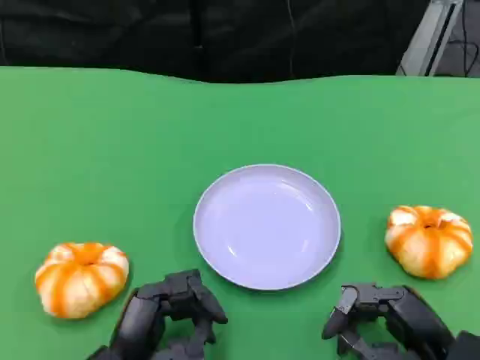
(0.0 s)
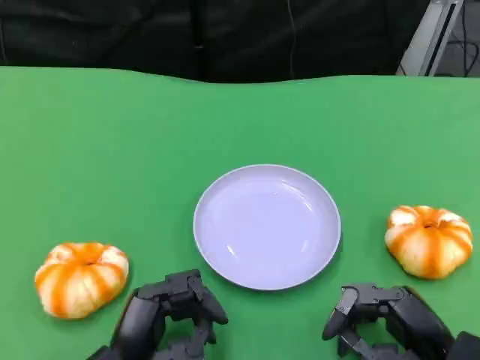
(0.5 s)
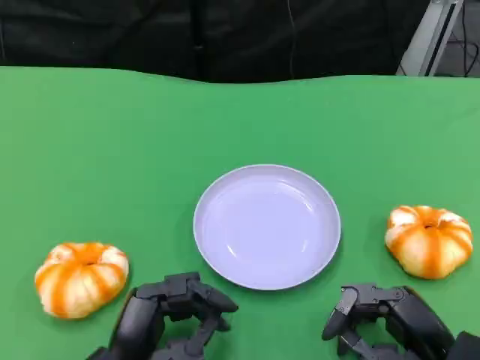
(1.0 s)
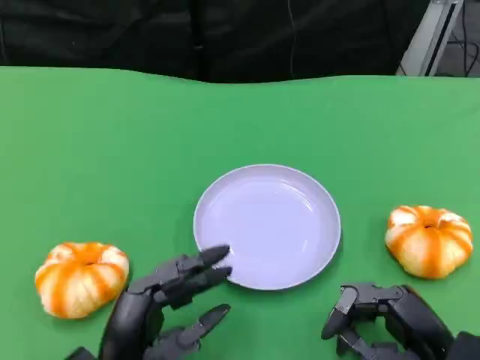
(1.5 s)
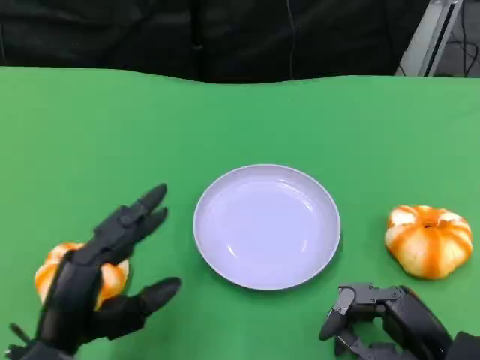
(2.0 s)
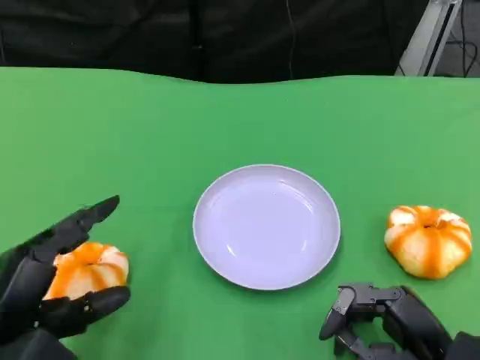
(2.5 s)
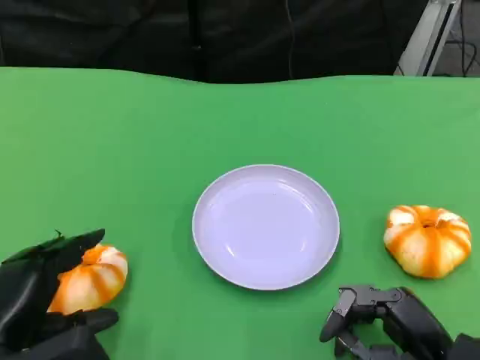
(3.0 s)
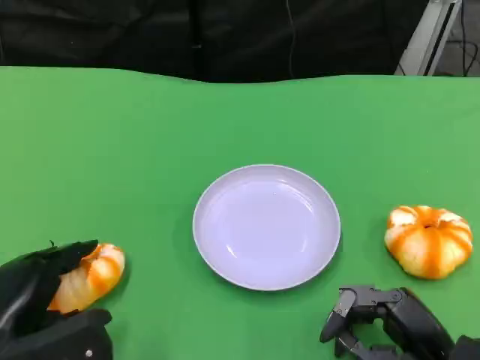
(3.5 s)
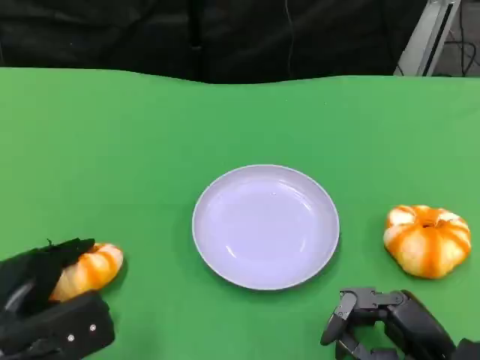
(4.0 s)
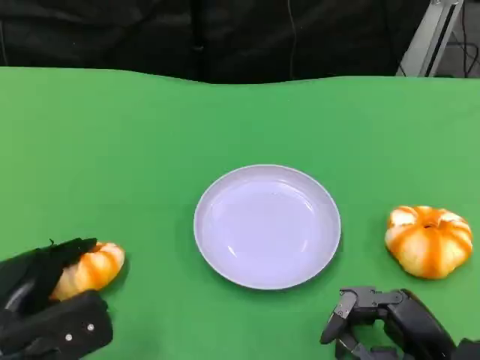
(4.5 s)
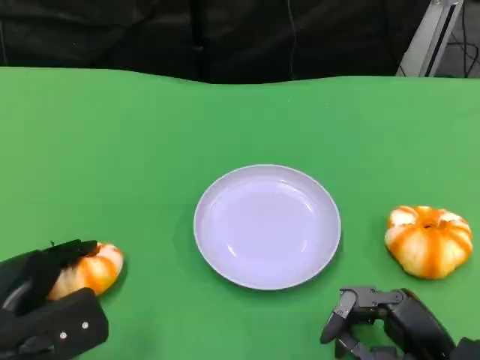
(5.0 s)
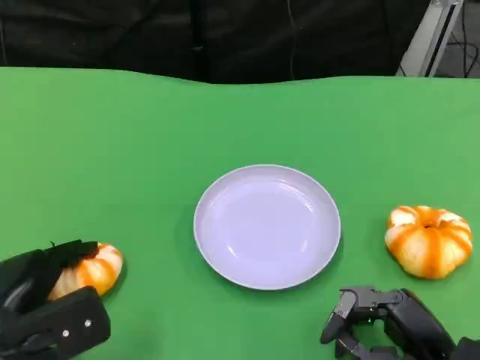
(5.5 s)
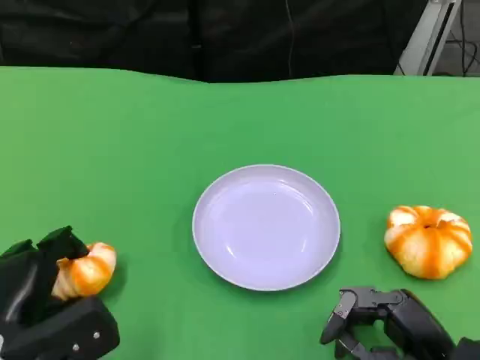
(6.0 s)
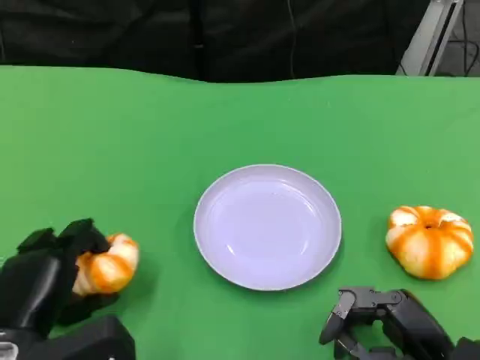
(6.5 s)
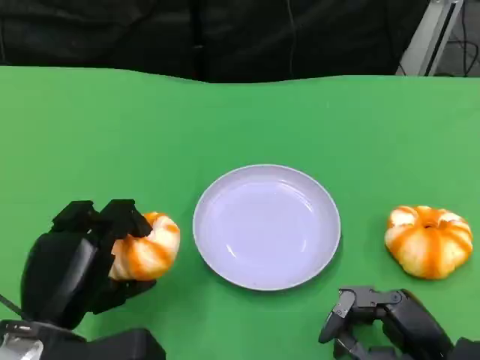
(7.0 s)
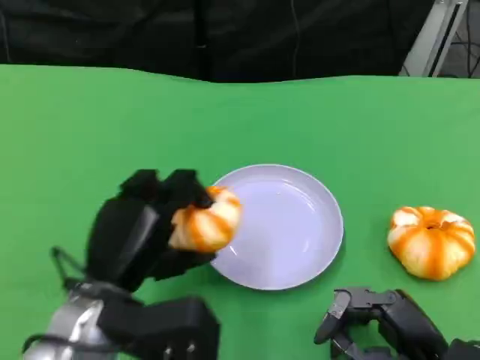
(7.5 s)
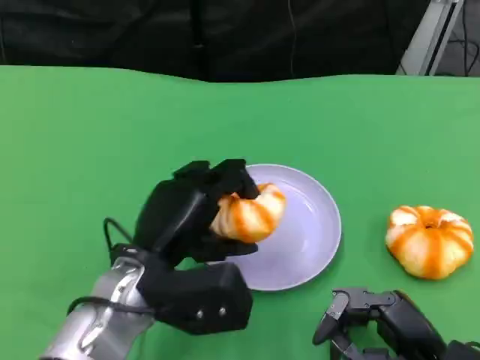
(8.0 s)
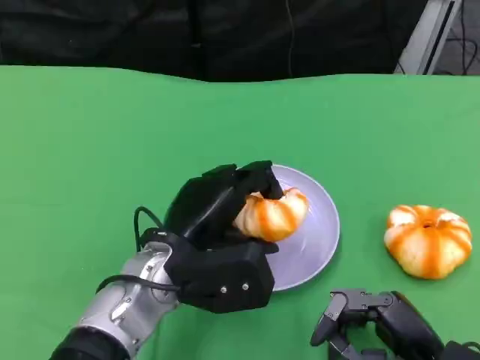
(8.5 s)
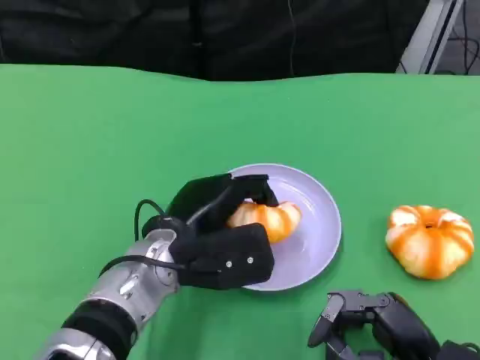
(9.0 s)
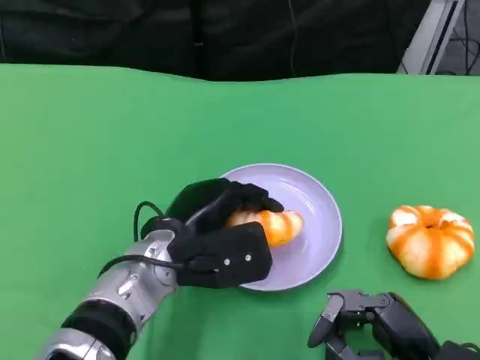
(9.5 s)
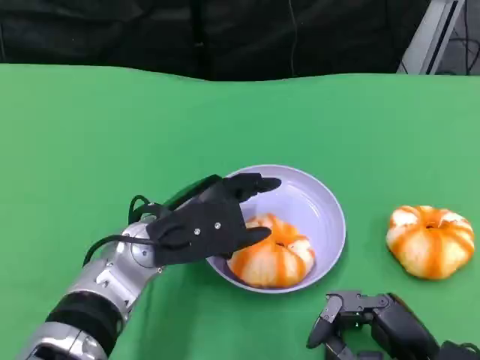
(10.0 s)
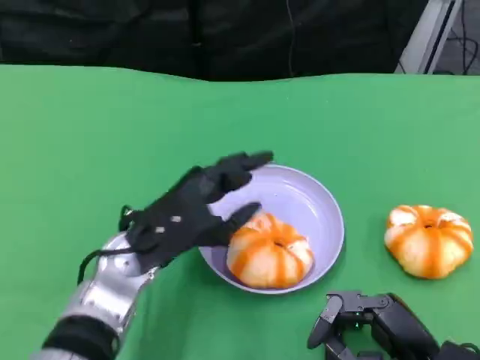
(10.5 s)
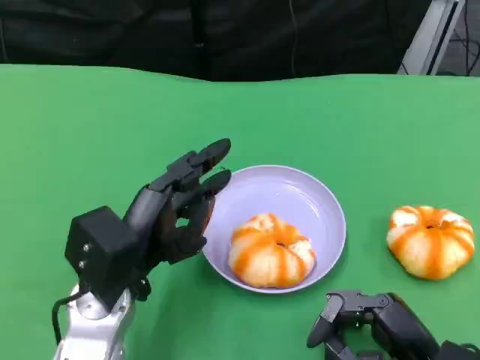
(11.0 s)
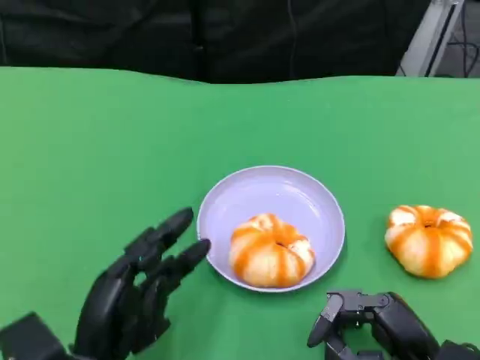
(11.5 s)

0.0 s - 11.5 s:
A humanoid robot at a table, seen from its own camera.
Task of the whole recording: Grasp the bread from the table and place it into the plate.
0.0 s - 2.0 s: The left hand shifts about 10 cm to the left and upward.
2.0 s - 4.0 s: The left hand moves to the left, some 5 cm.
4.0 s - 6.0 s: The hands make only small movements.
6.0 s - 7.5 s: The left hand travels to the right and upward by about 10 cm.
7.5 s - 9.5 s: The left hand goes approximately 10 cm forward and to the right.
9.5 s - 11.5 s: The left hand goes roughly 15 cm backward and to the left.

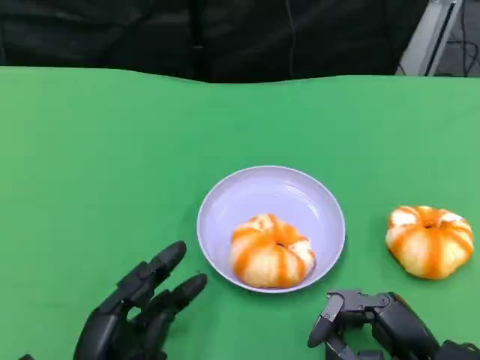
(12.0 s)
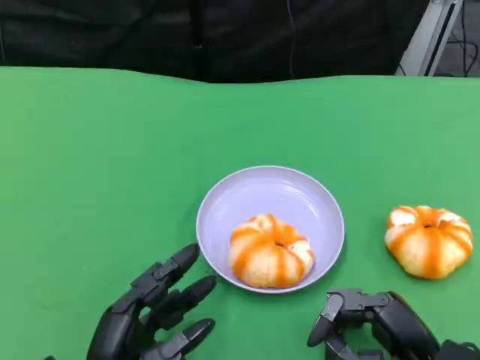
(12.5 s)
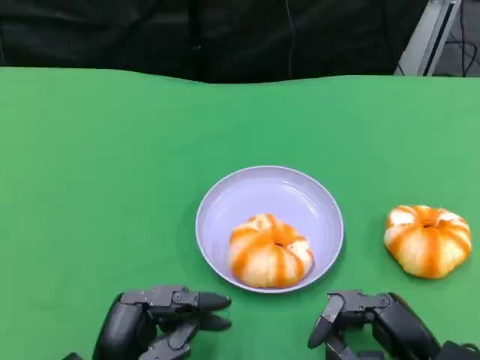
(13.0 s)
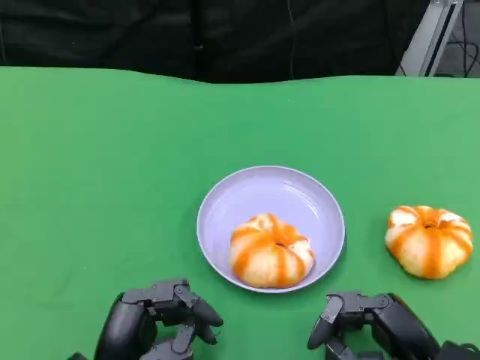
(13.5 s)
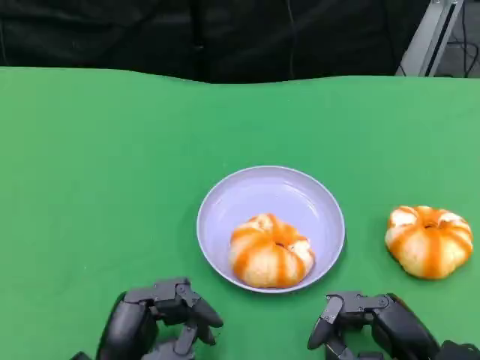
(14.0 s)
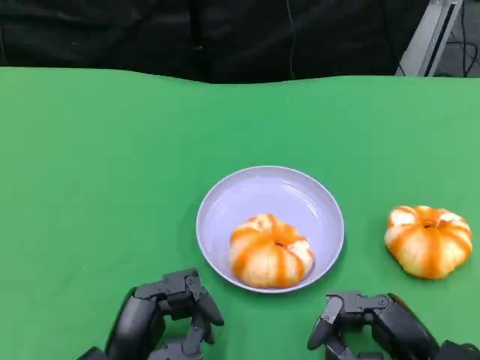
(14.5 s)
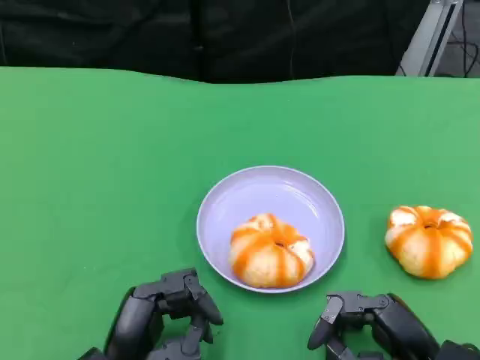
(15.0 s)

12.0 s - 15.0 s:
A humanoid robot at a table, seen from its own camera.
Task of the whole recording: Grasp the bread from the table and place it into the plate.
12.0 s - 13.5 s: There are only small adjustments of the hands.
13.5 s - 15.0 s: Both hands stay about where they are.

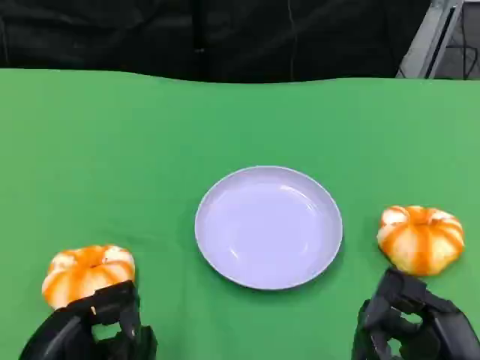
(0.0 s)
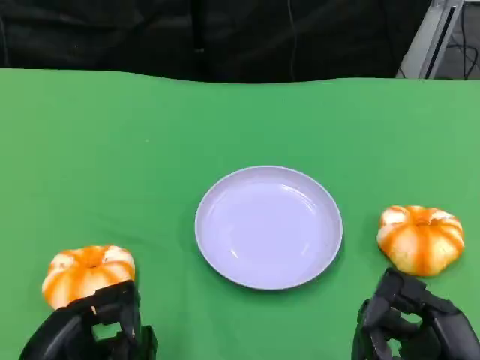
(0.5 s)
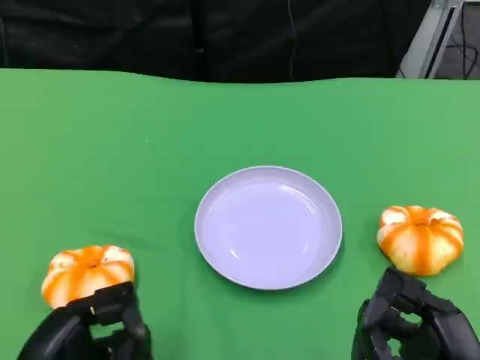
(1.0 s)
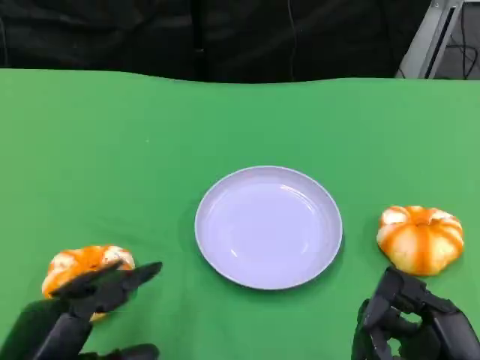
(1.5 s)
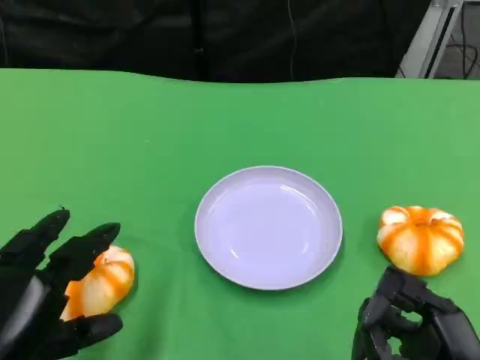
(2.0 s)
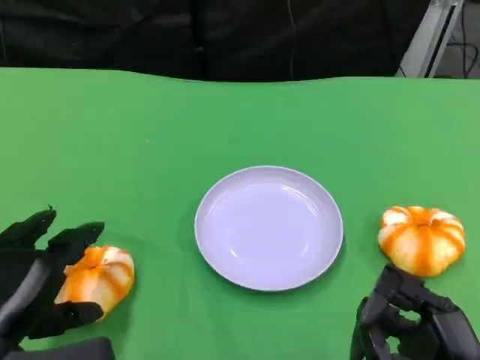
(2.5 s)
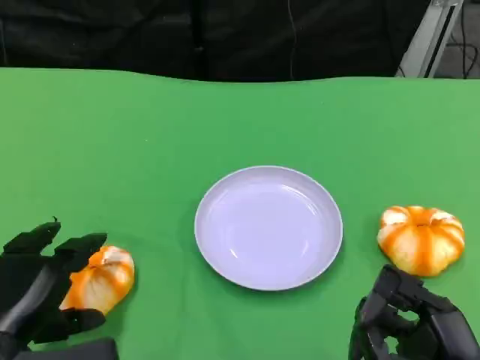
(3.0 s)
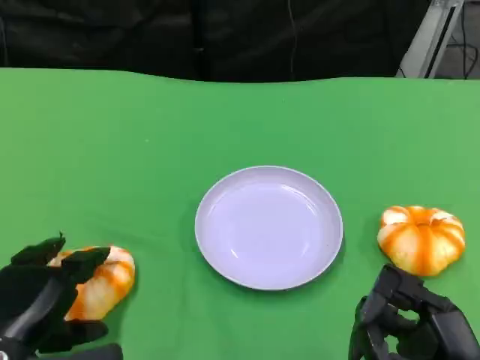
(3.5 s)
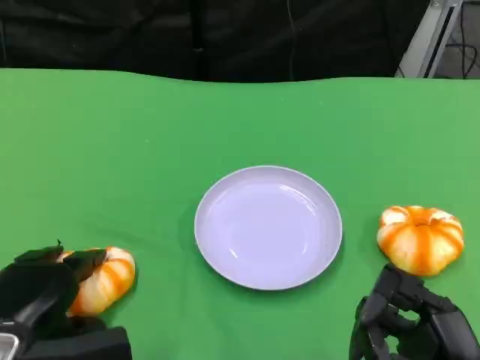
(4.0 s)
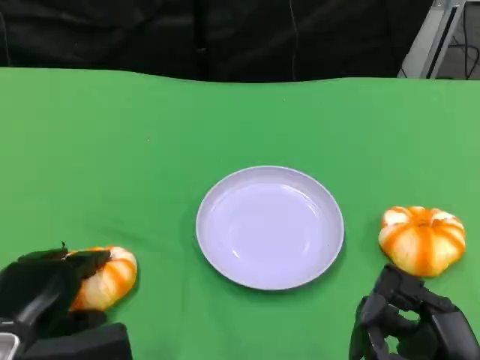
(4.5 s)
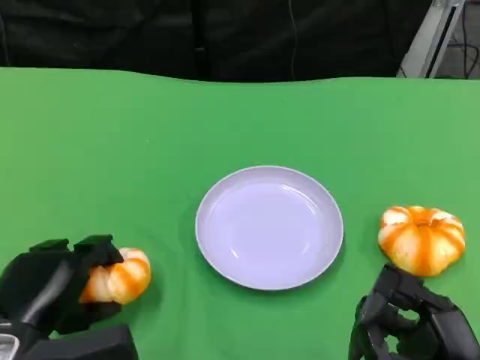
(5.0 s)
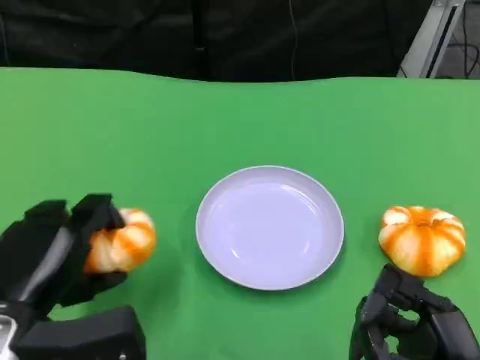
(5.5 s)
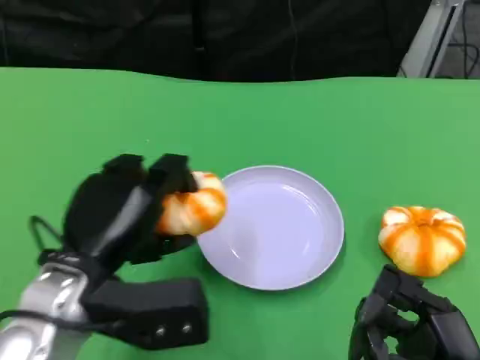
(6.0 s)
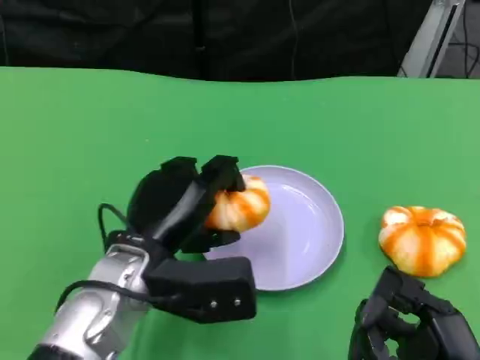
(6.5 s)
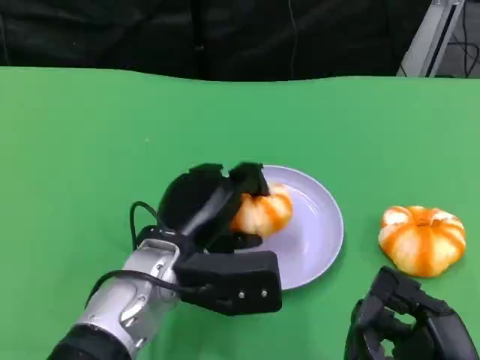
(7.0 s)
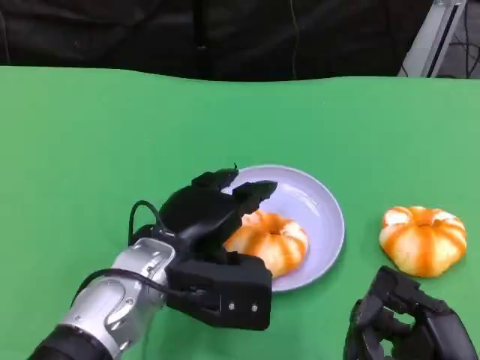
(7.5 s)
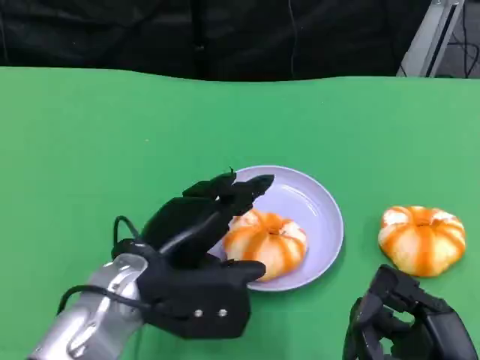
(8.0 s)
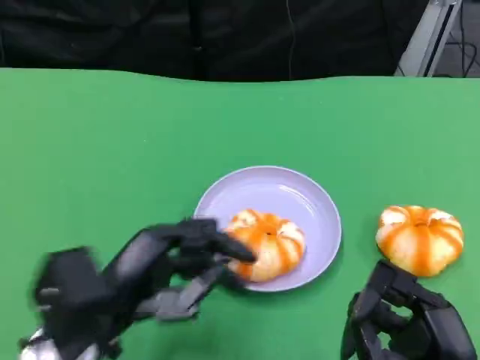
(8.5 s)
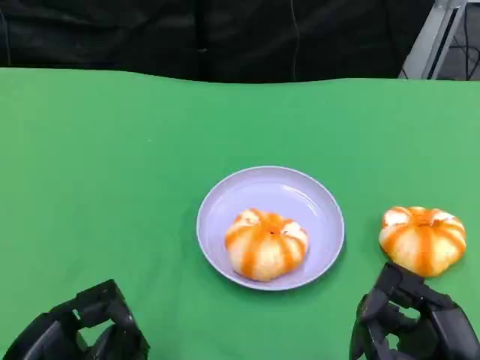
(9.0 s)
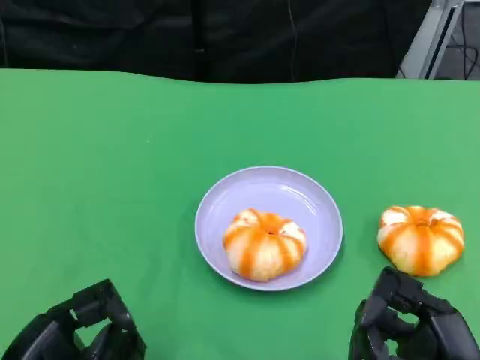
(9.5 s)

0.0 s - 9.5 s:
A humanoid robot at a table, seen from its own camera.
Task of the whole recording: Grasp the bread from the table and place it into the plate.
2.0 s - 4.0 s: The left hand travels forward by some 5 cm.
4.0 s - 5.5 s: The left hand travels upward by roughly 5 cm.
5.5 s - 7.5 s: The left hand goes some 15 cm to the right and forward.
7.5 s - 9.5 s: The left hand moves to the left and backward, roughly 20 cm.

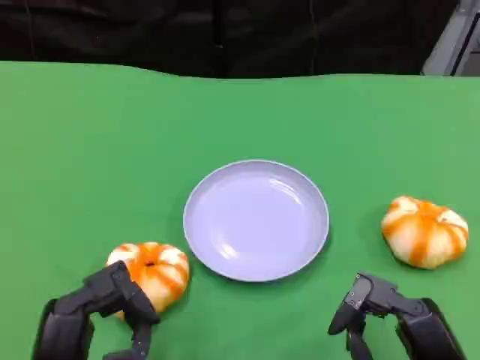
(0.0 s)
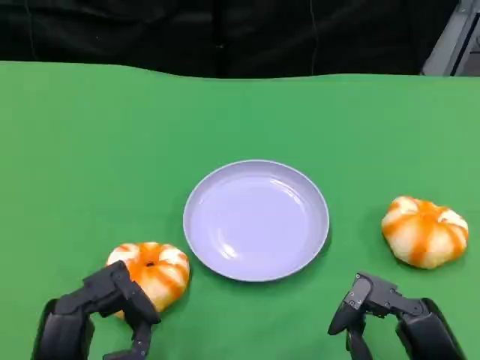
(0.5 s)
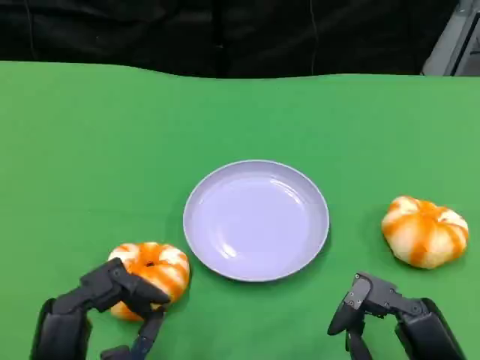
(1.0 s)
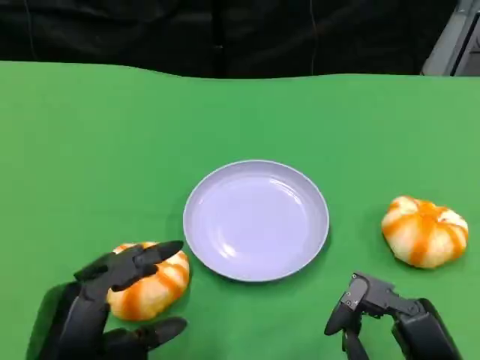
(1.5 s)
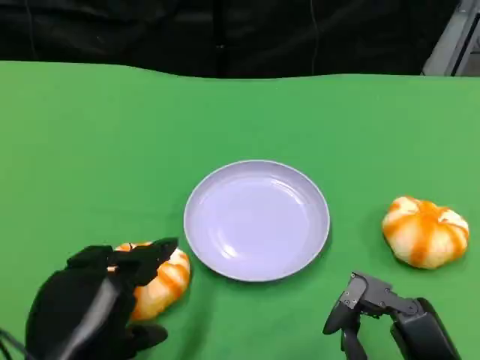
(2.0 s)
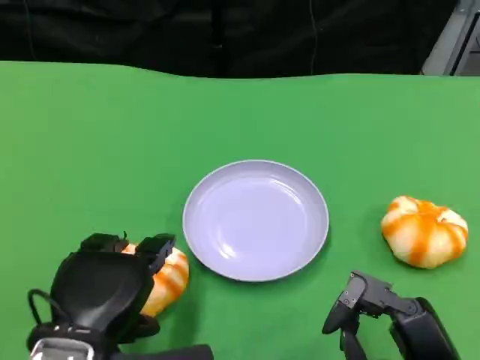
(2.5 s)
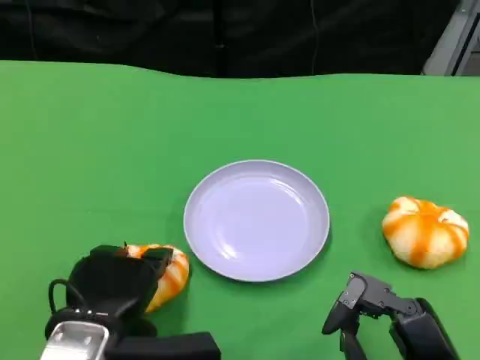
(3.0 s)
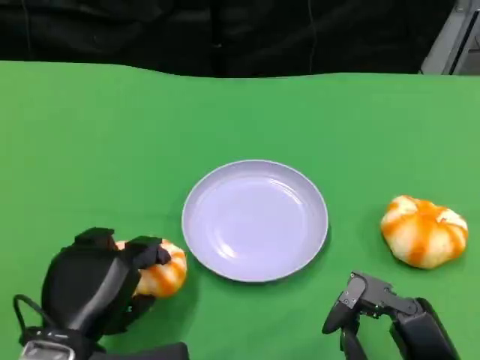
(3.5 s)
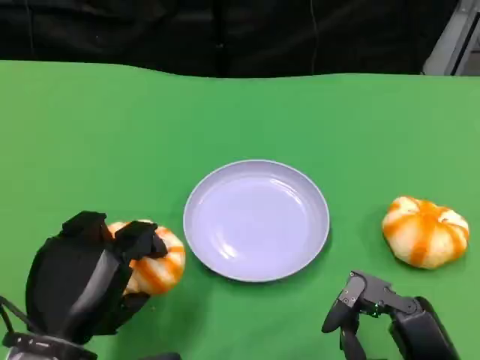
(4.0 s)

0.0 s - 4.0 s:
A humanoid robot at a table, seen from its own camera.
Task of the whole recording: Grasp the bread from the table and place it into the plate.
0.0 s - 2.0 s: The left hand is displaced upward by approximately 5 cm.
